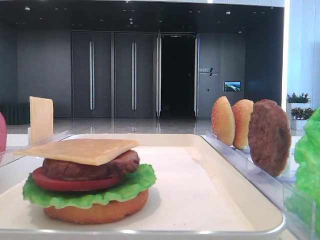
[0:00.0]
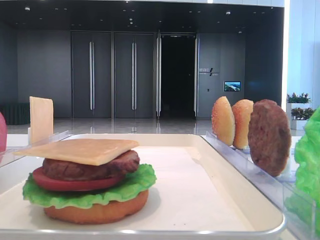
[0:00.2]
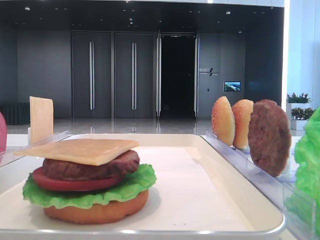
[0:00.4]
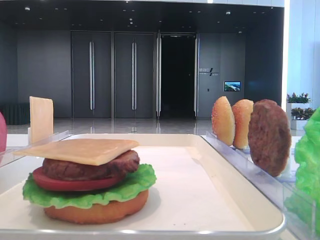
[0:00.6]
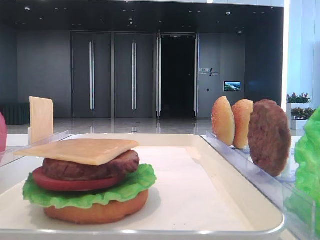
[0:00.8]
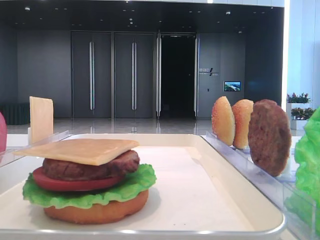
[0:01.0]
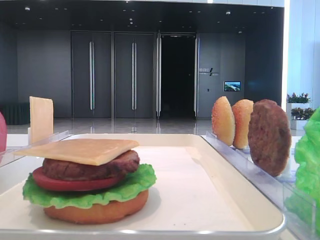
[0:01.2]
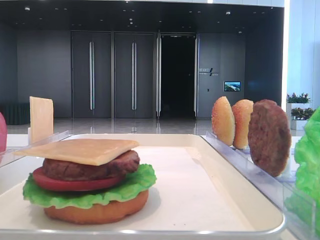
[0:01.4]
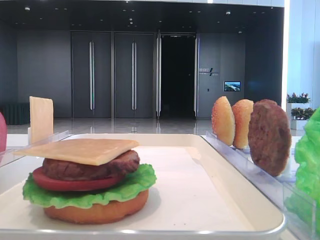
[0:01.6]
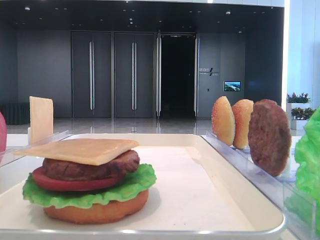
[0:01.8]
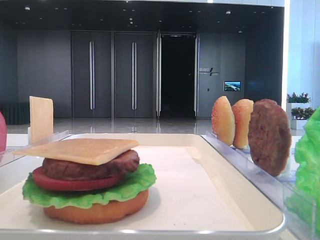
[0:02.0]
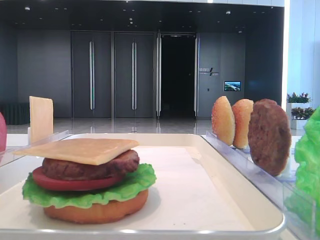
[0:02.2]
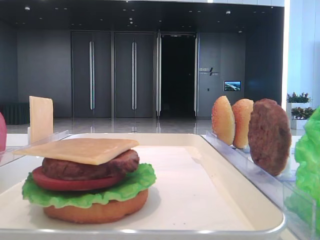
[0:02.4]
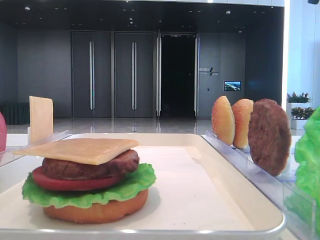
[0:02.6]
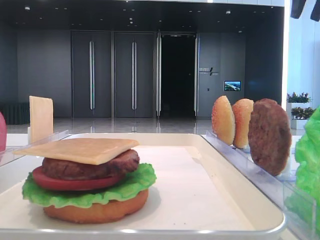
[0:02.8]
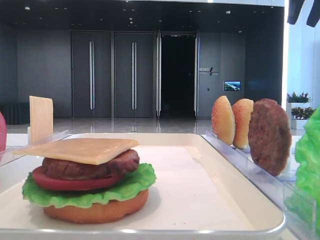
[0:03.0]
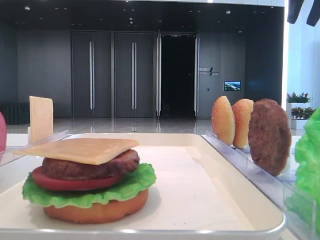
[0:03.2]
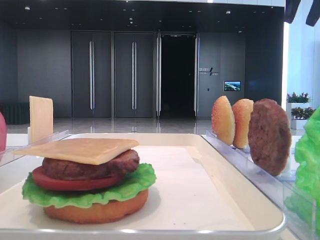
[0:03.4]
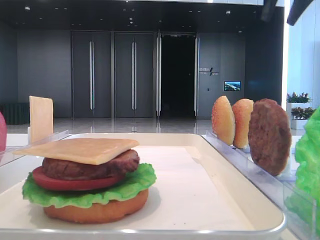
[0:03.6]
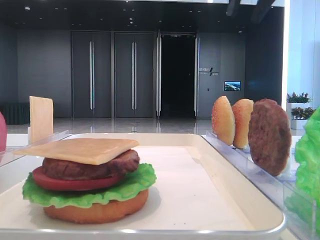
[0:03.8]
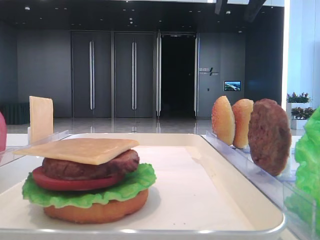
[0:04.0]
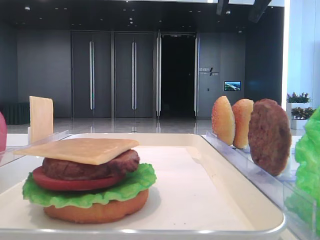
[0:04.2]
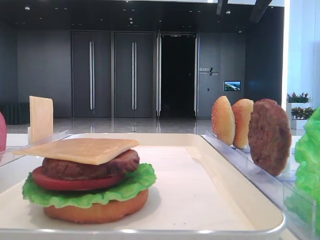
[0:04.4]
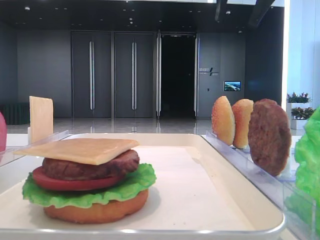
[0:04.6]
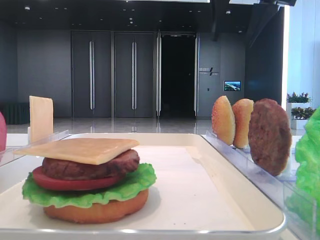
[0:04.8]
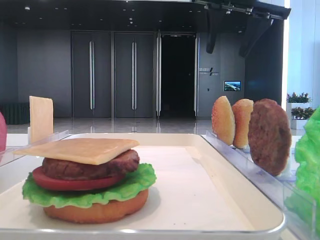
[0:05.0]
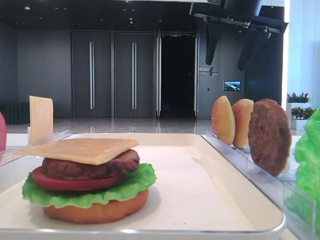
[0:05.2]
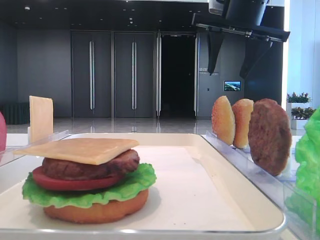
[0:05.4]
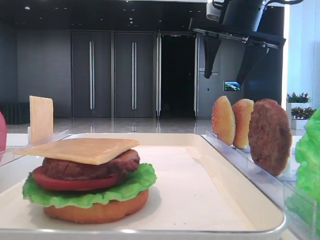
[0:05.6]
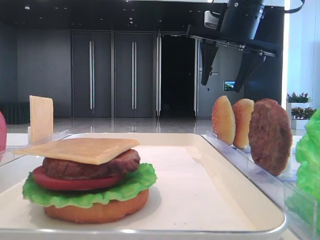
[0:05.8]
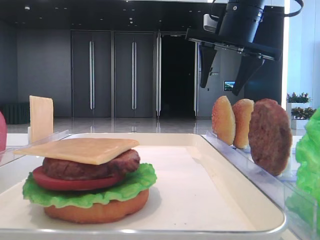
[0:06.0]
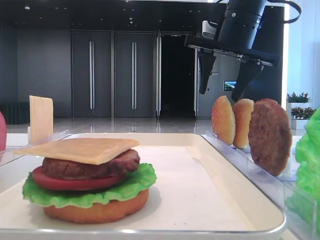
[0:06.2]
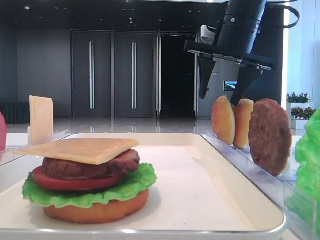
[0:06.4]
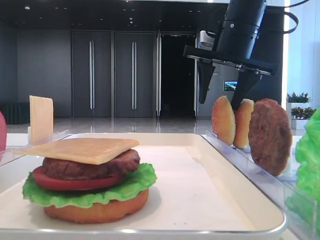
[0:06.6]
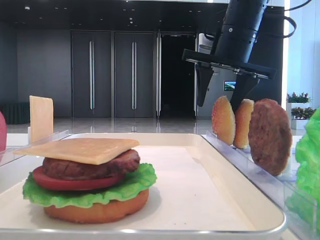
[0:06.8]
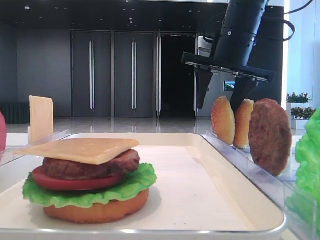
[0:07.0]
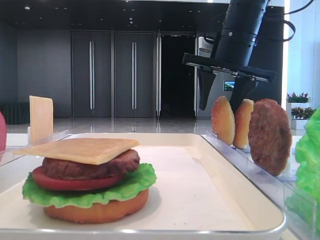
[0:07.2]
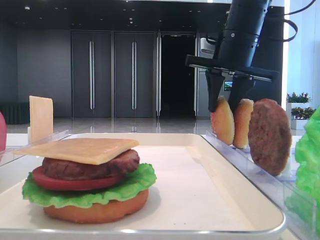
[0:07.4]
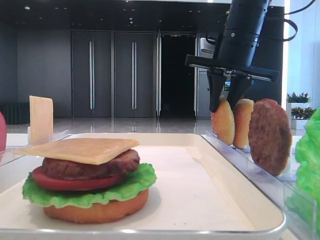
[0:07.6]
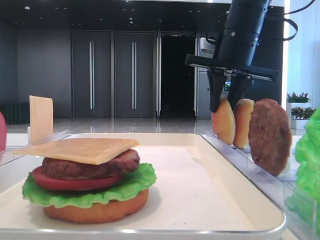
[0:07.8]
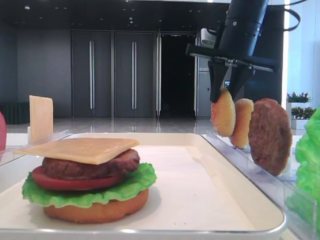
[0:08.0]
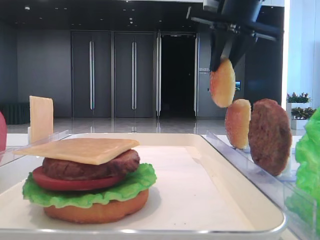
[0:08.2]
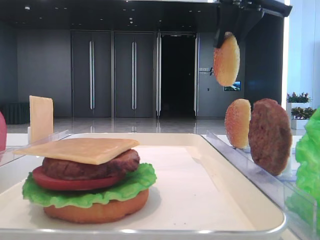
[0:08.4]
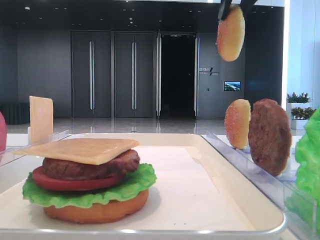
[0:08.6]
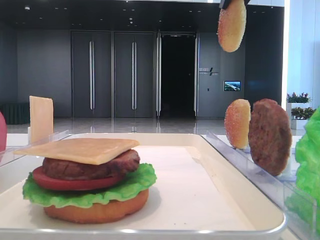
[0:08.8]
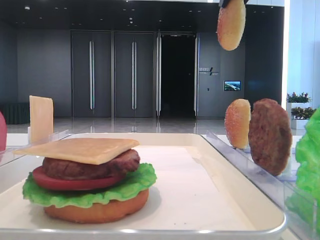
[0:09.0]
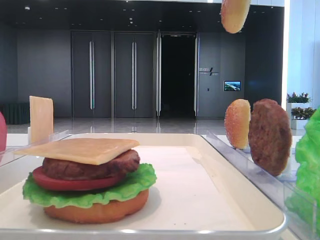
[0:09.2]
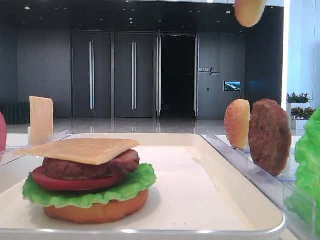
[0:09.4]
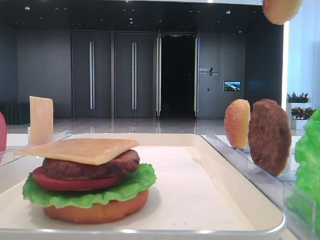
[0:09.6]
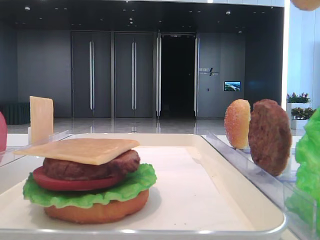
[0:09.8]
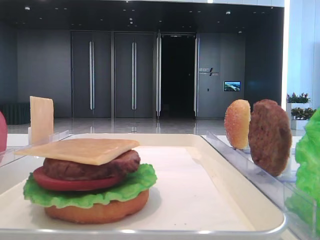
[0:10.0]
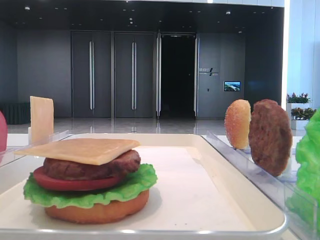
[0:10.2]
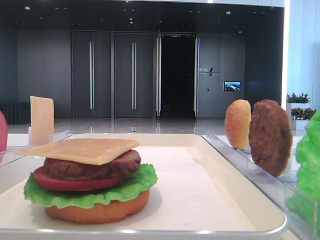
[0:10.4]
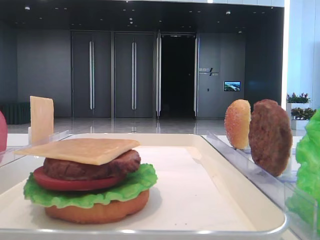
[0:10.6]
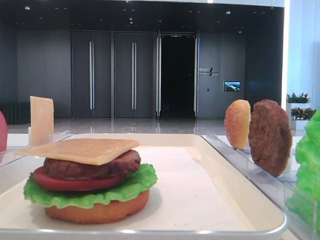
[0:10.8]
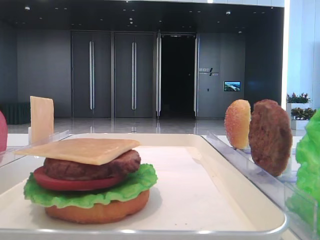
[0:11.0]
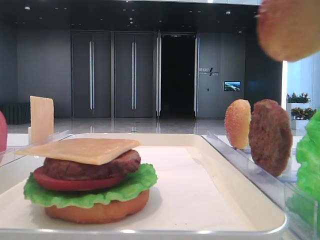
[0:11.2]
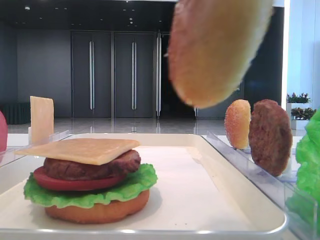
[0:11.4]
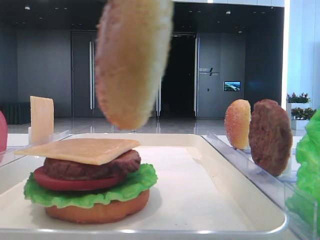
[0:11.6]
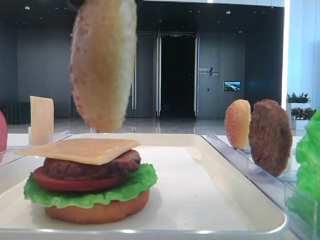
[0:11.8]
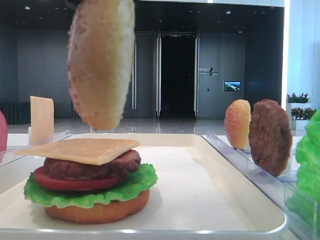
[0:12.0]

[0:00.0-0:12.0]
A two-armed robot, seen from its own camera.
Step, 0:00.0 to 0:07.6: Pick up the top bread slice with the right hand.
0:01.6 to 0:03.0: The right gripper travels forward by some 35 cm.
0:03.0 to 0:04.4: The right gripper heads to the left, covering some 10 cm, and opens.
0:04.4 to 0:06.0: The right gripper heads downward and forward, covering some 10 cm.
0:06.0 to 0:07.6: The right gripper closes up.
0:07.6 to 0:09.0: The right gripper heads upward and backward, covering roughly 15 cm.
0:09.0 to 0:10.4: The right gripper goes some 25 cm backward.
0:10.4 to 0:12.0: The right gripper heads to the left, covering about 20 cm.

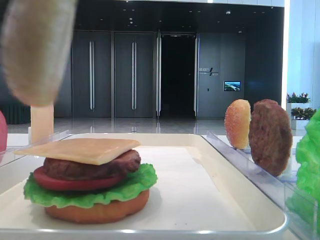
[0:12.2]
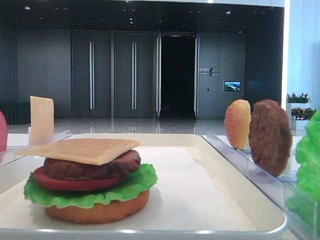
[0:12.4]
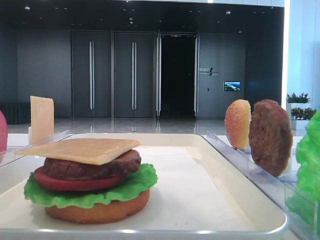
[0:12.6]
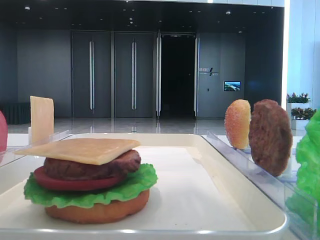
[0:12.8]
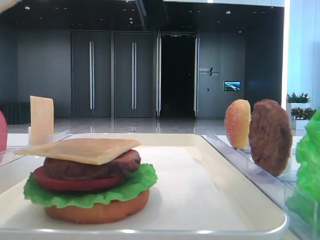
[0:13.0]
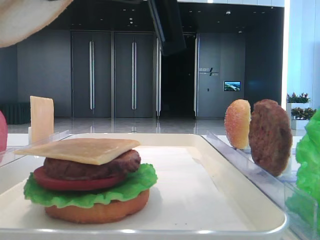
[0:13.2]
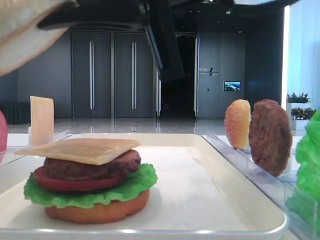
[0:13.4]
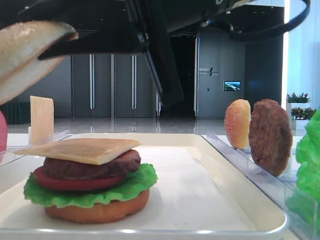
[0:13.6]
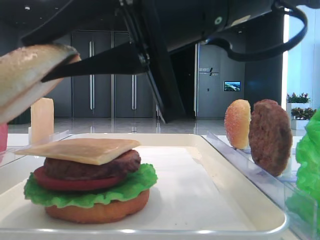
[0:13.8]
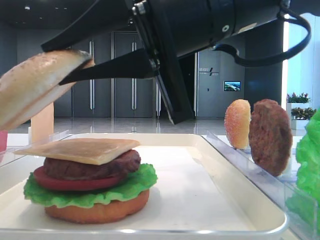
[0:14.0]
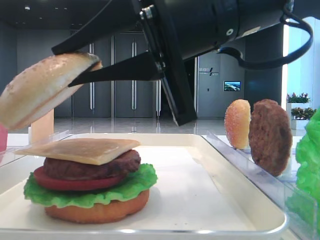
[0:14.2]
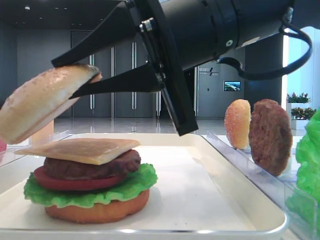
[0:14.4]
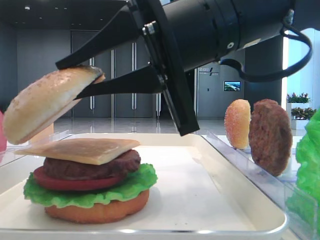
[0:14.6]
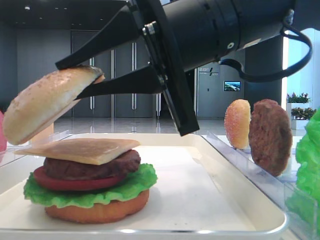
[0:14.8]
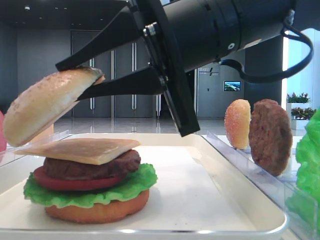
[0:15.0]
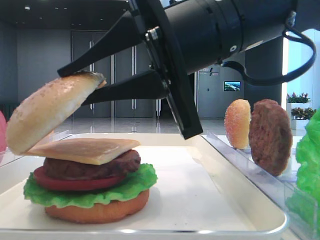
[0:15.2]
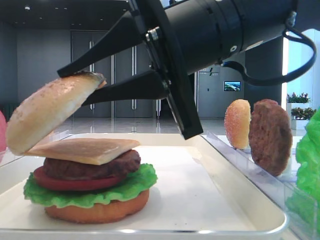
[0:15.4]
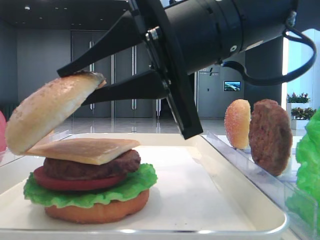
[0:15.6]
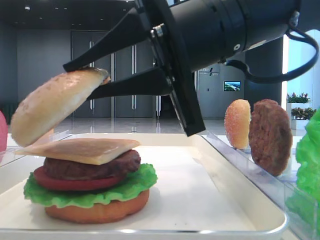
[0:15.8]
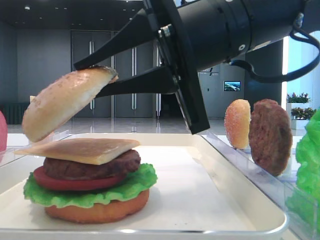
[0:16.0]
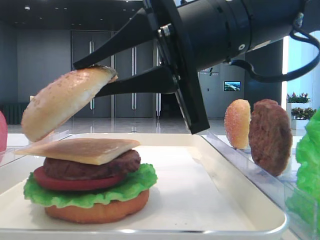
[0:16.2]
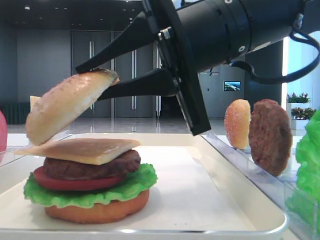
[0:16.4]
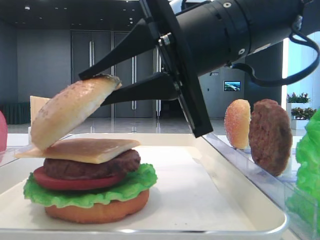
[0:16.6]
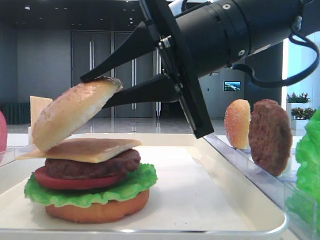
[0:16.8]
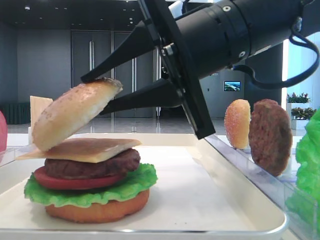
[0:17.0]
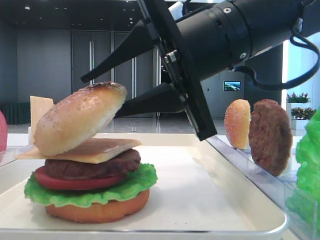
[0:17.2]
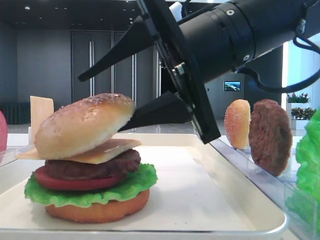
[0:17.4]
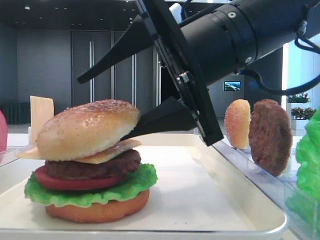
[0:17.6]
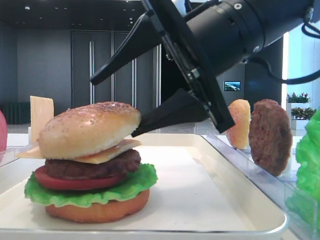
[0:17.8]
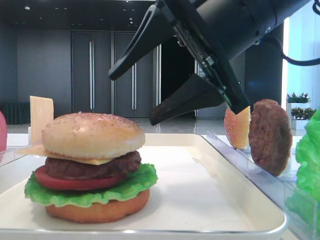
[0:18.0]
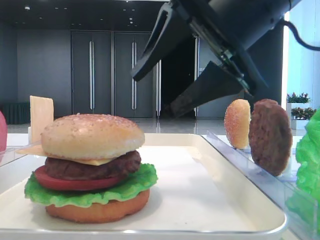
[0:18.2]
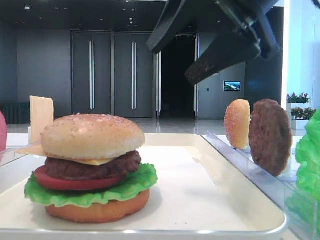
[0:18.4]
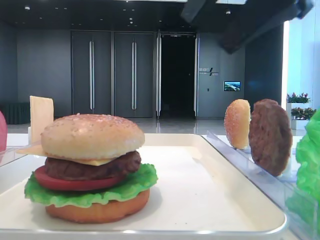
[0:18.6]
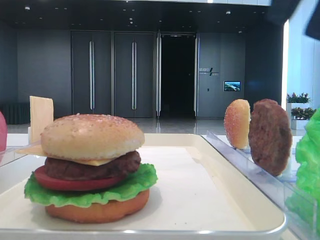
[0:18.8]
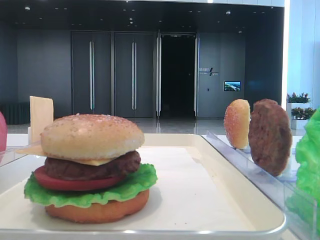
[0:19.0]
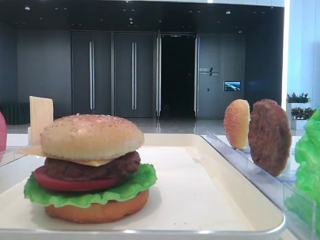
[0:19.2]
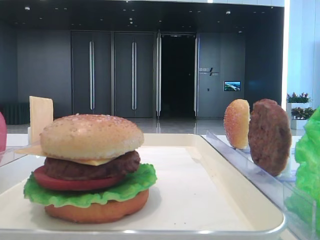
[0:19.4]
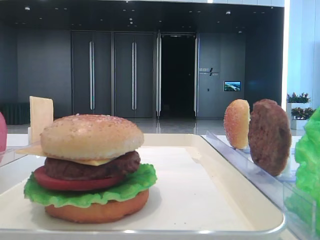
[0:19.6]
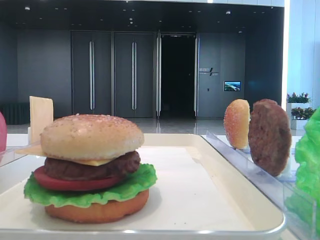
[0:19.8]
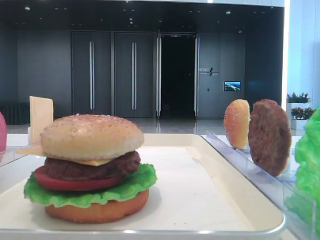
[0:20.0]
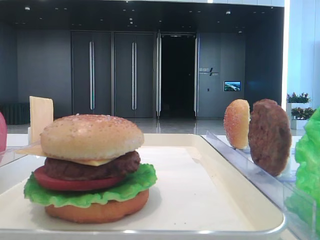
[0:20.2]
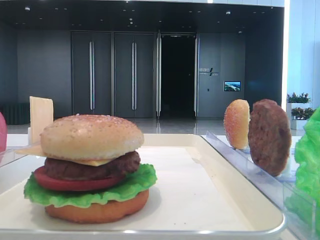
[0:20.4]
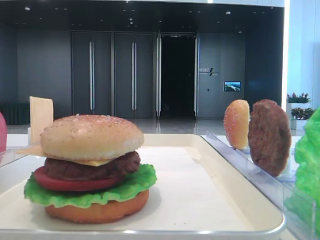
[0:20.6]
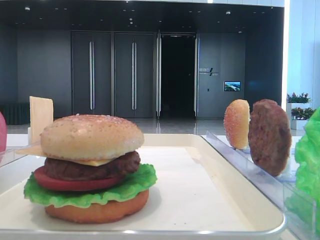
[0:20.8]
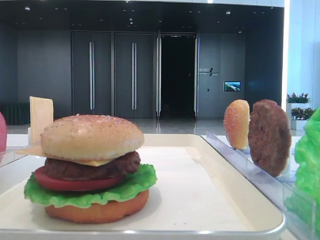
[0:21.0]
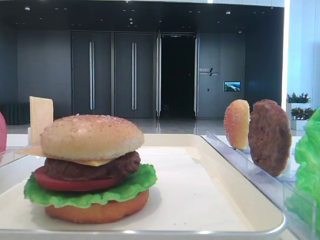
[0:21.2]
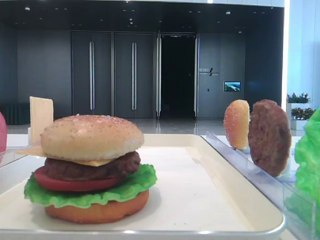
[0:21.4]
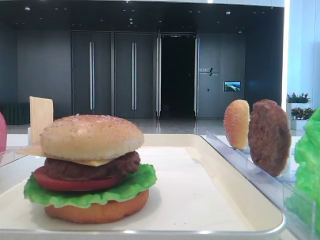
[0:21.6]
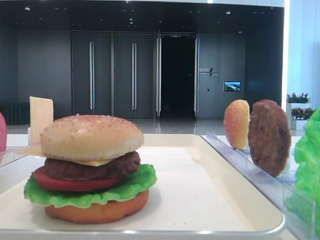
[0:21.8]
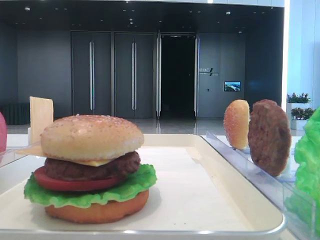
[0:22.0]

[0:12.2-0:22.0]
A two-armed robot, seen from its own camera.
Step, 0:12.2 to 0:17.8: Place the top bread slice on the cheese with the right hand.
0:12.2 to 0:13.6: The right gripper shifts about 10 cm downward and forward.
0:15.0 to 0:16.4: Neither gripper changes place.
0:16.4 to 0:17.8: The right gripper opens.
0:17.8 to 0:19.2: The right gripper shifts roughly 25 cm to the right and upward.

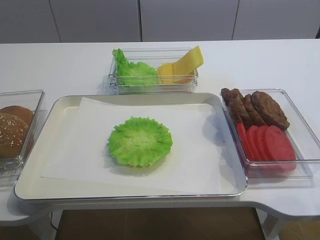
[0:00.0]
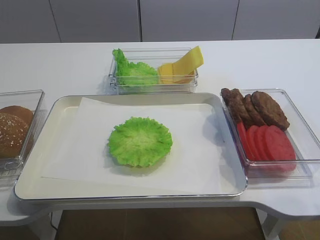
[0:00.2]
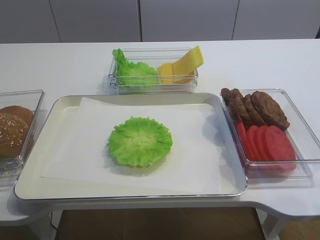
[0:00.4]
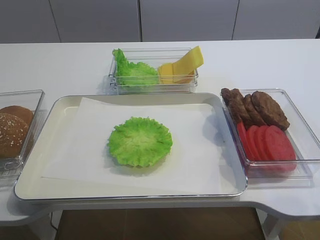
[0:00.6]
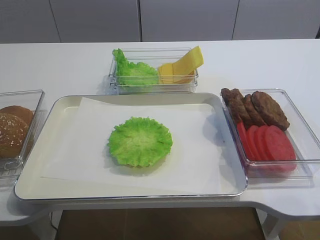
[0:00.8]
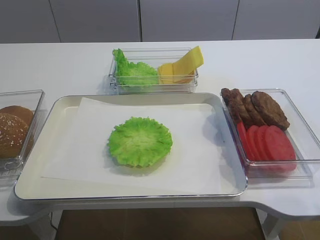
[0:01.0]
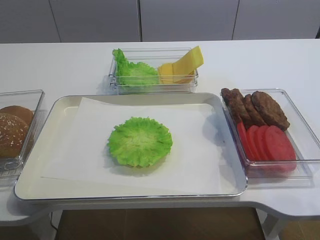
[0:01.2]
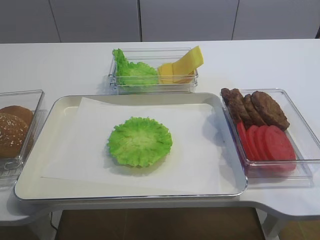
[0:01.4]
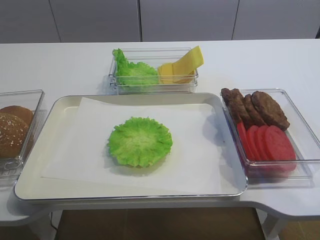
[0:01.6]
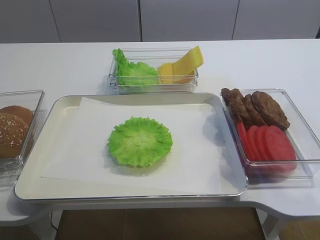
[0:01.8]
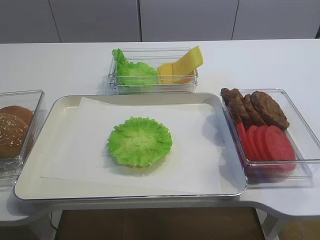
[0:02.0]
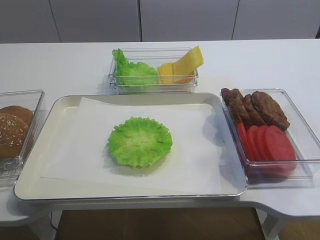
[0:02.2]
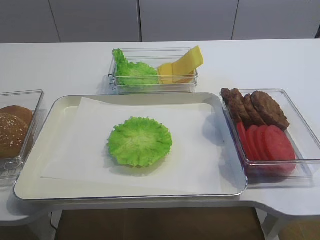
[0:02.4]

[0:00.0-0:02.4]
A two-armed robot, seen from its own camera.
0:01.2 to 0:02.4: The right gripper shifts approximately 10 cm upward and forward.
